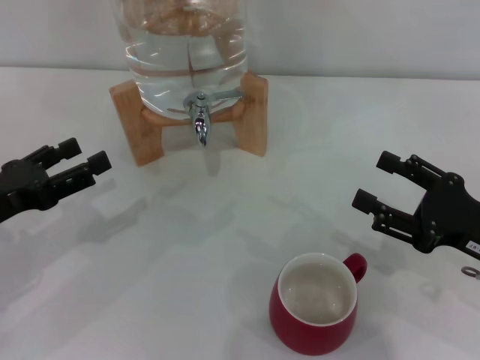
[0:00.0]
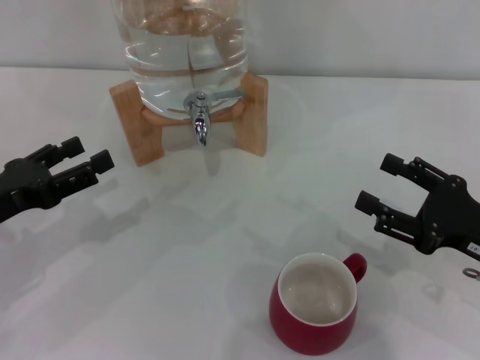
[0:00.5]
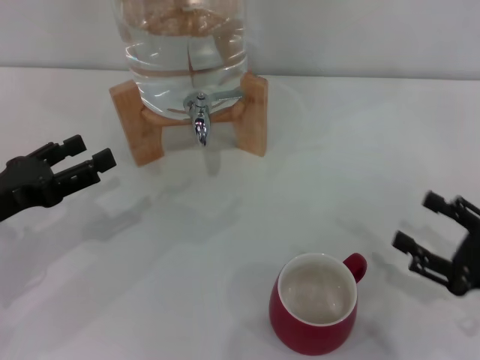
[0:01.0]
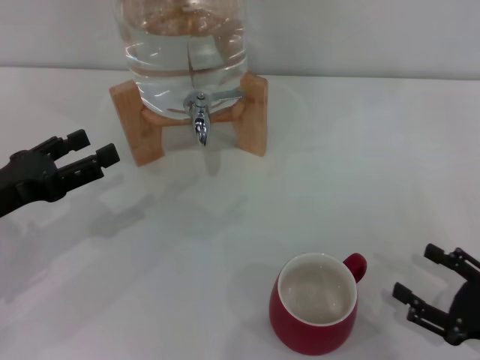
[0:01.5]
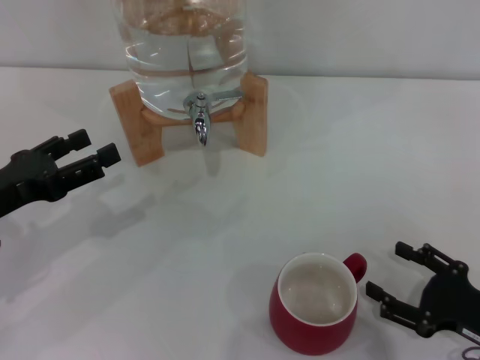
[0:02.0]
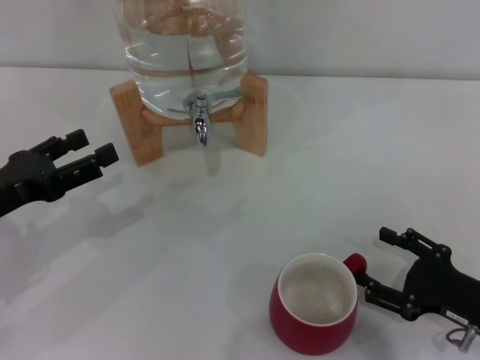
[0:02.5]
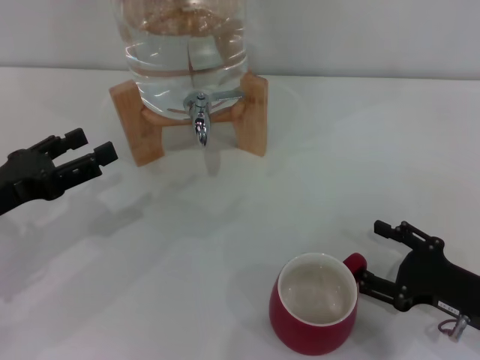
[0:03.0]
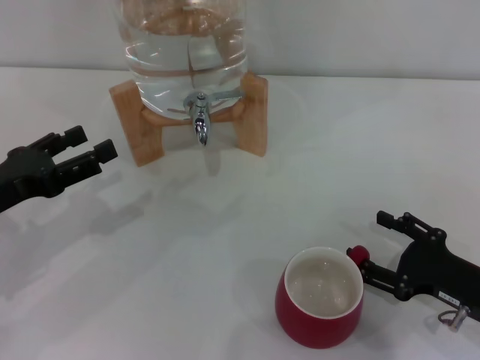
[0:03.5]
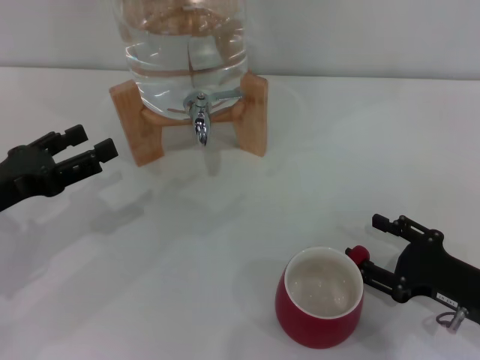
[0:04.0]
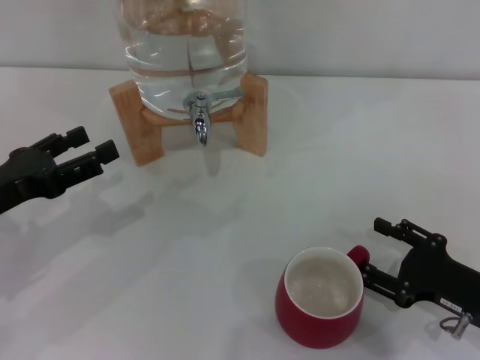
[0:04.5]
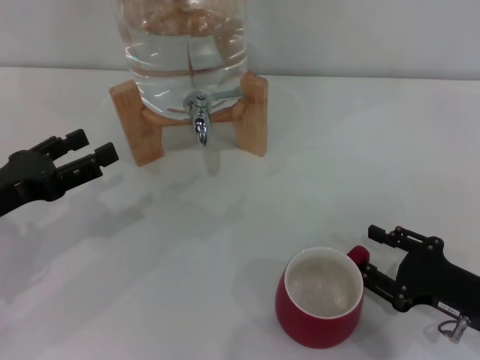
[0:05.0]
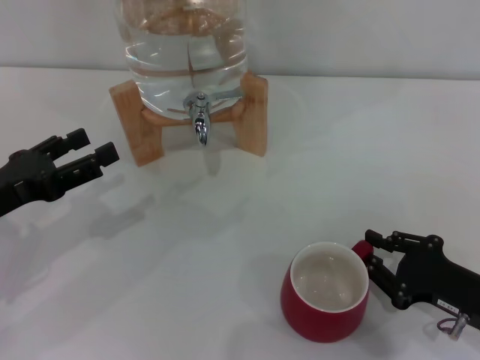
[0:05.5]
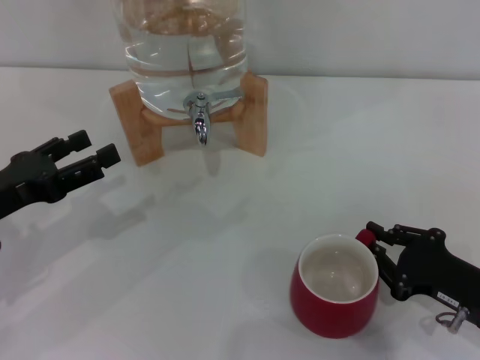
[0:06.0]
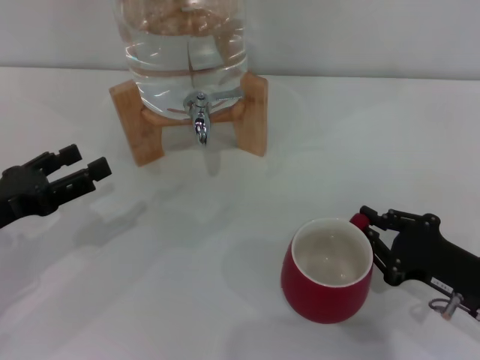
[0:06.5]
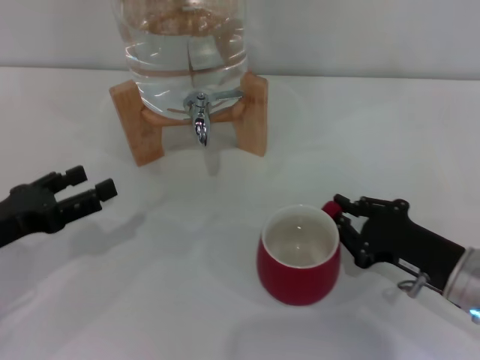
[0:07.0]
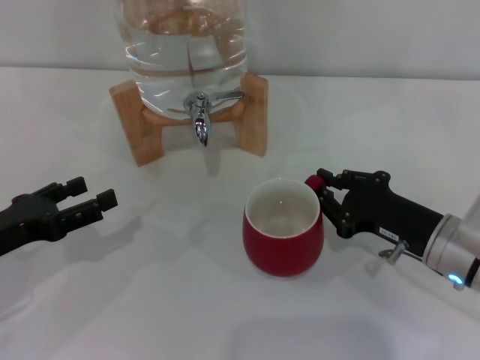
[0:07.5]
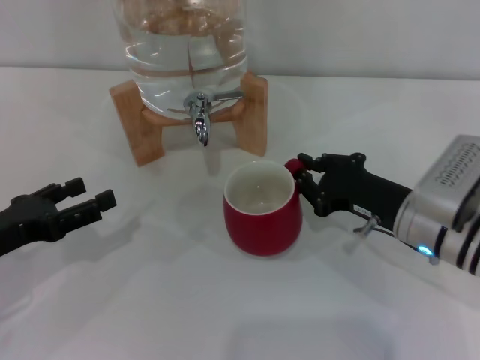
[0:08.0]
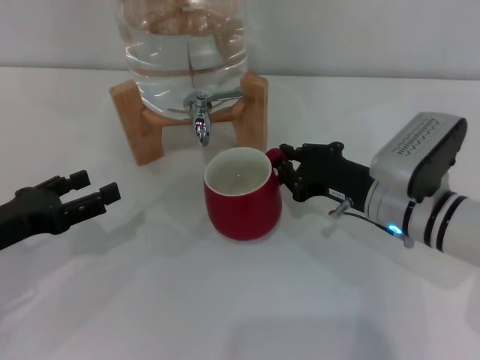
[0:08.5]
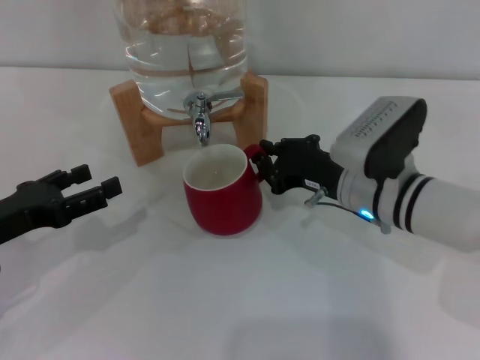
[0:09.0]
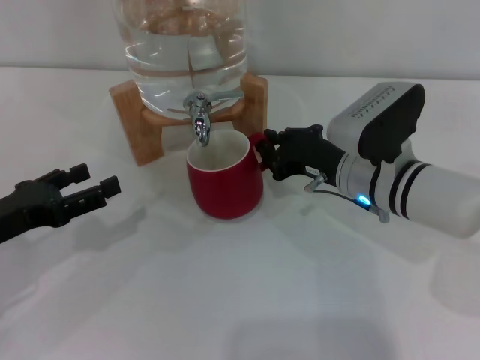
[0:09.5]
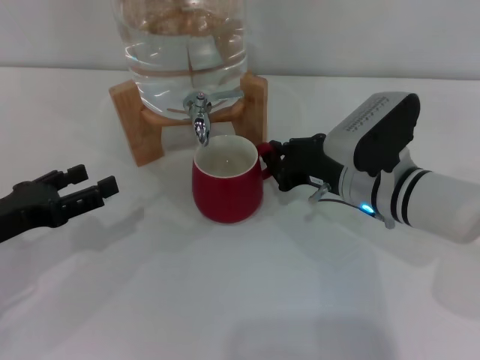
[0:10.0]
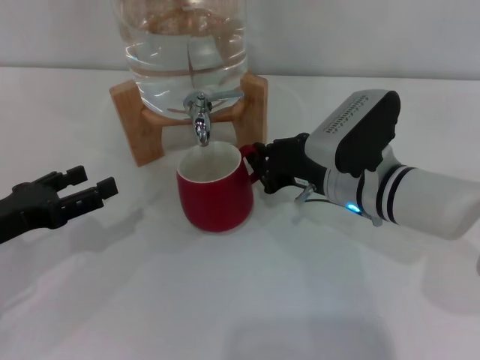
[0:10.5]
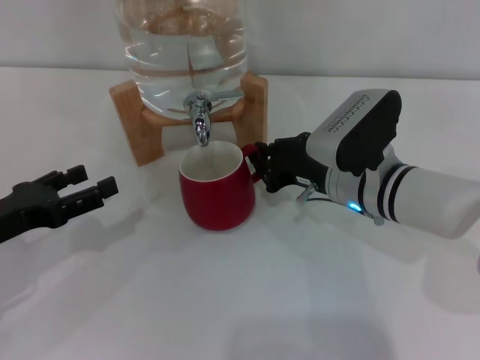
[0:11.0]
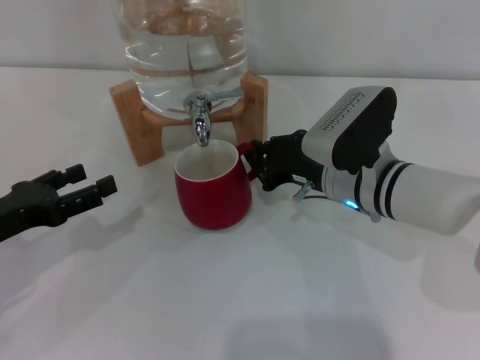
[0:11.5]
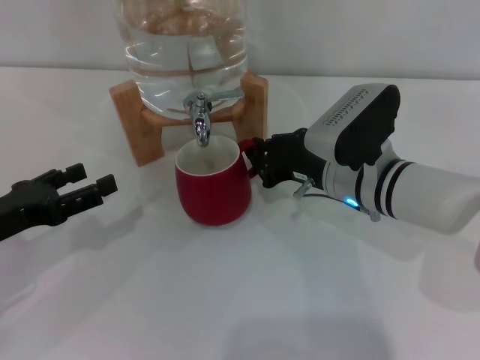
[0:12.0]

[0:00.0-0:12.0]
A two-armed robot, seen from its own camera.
Task of the whole recording: the right gripper pick up the red cup and place it horizontally under the faucet, the left gripper turn on the faucet to fill the cup, and then turn off the faucet.
0:00.0 to 0:02.0: The right gripper heads downward, covering some 5 cm.
0:02.0 to 0:04.0: The grippers make only small movements.
0:04.0 to 0:06.0: The right gripper closes up.
0:06.0 to 0:08.0: The right gripper moves forward and to the left, about 10 cm.
0:08.0 to 0:10.0: The right gripper goes some 5 cm to the left.
0:10.0 to 0:12.0: The grippers make only small movements.

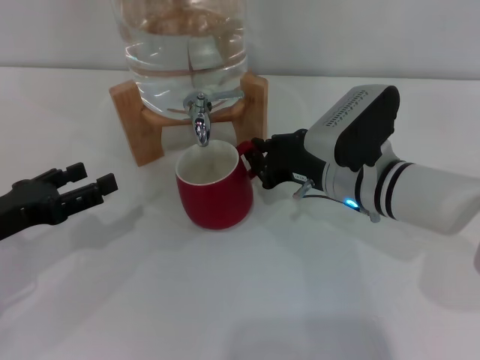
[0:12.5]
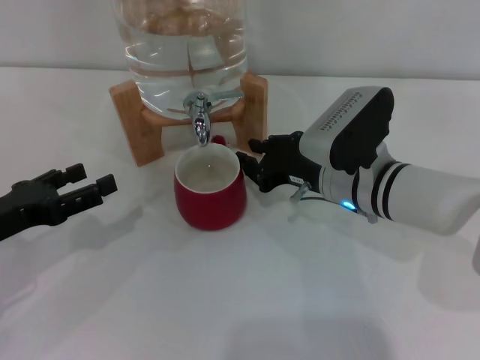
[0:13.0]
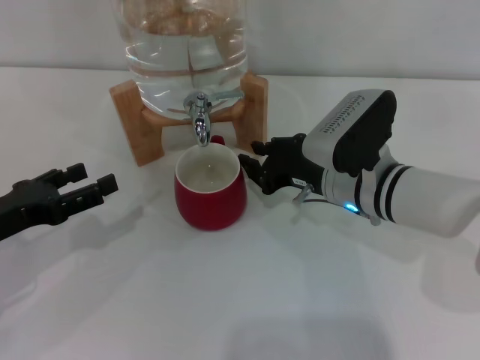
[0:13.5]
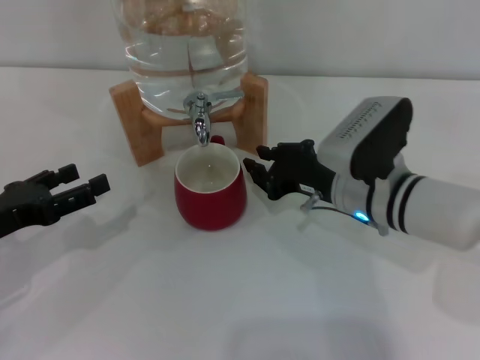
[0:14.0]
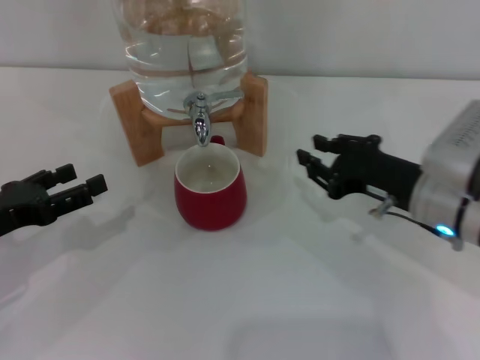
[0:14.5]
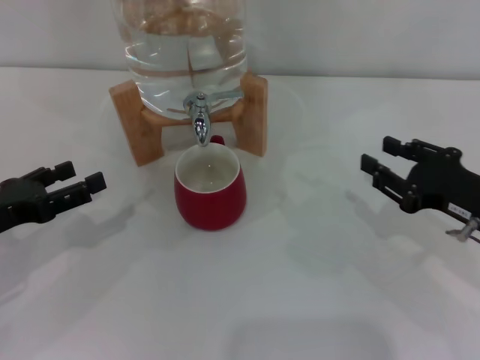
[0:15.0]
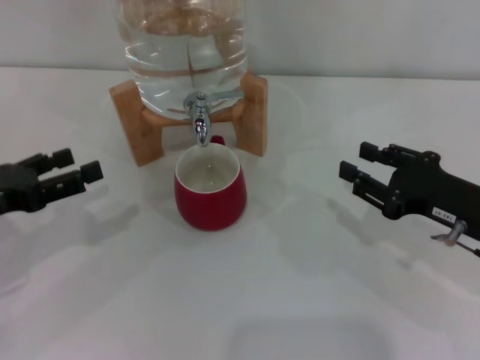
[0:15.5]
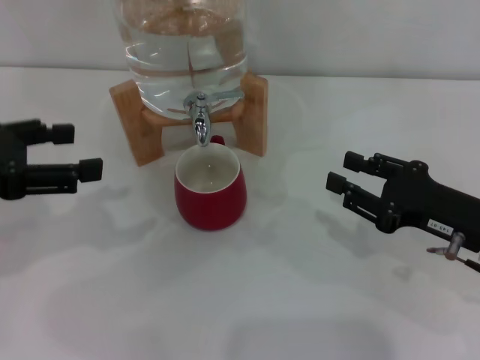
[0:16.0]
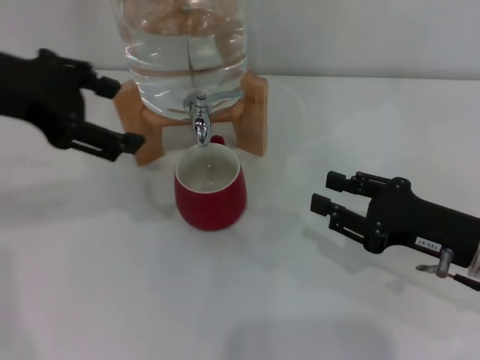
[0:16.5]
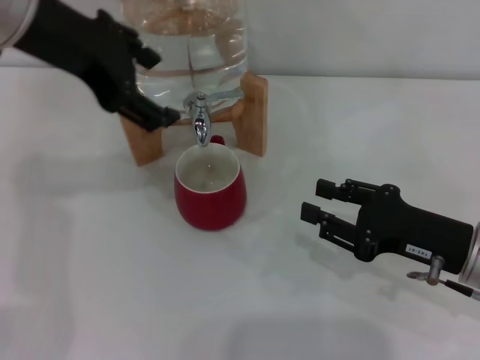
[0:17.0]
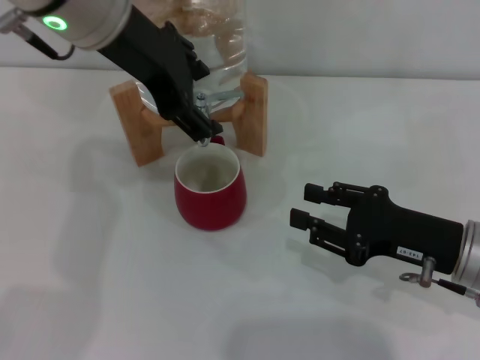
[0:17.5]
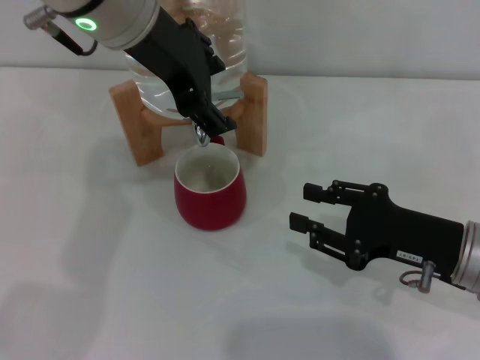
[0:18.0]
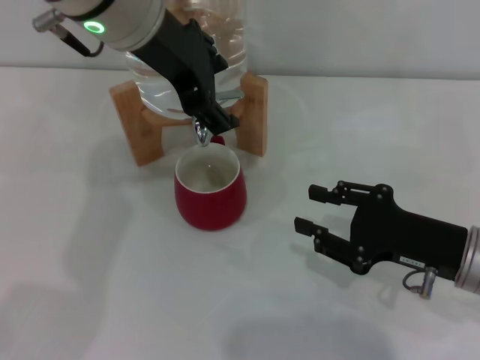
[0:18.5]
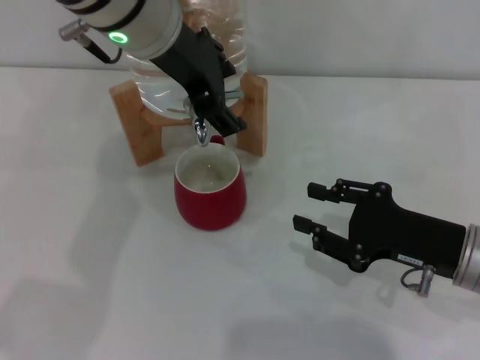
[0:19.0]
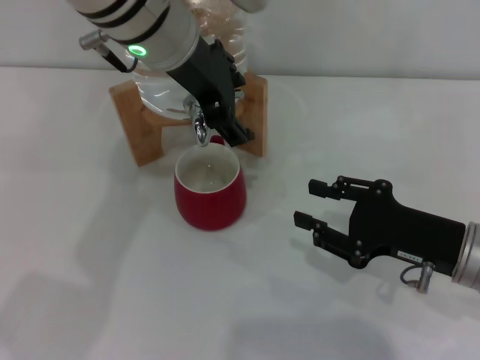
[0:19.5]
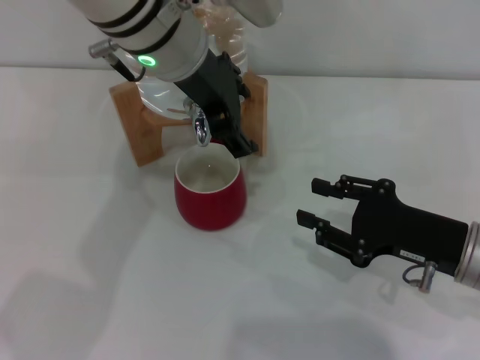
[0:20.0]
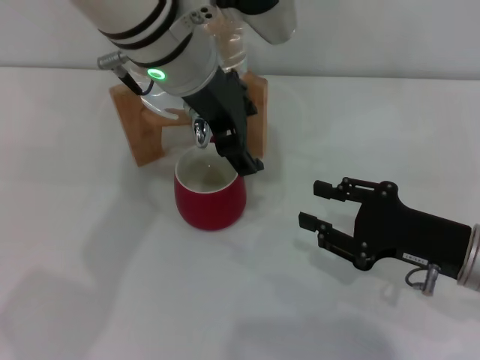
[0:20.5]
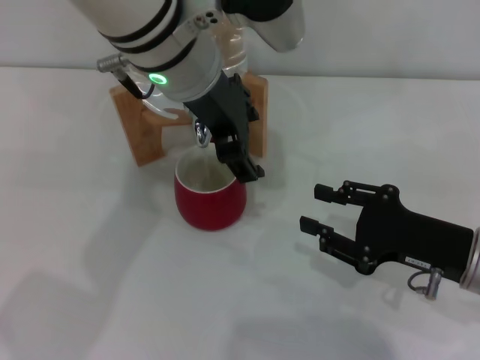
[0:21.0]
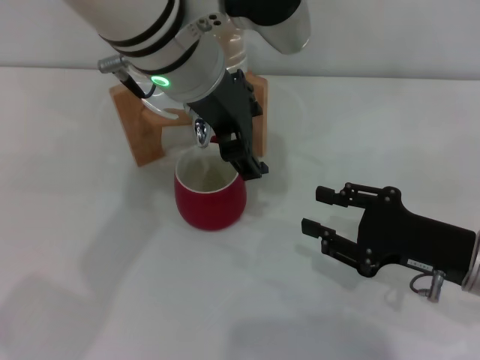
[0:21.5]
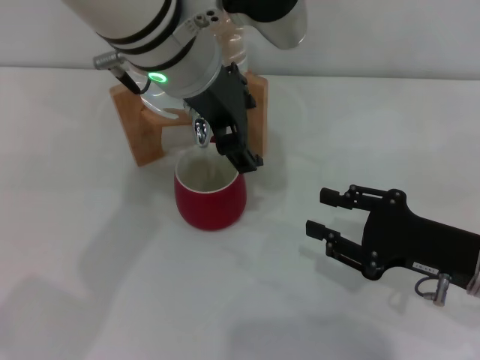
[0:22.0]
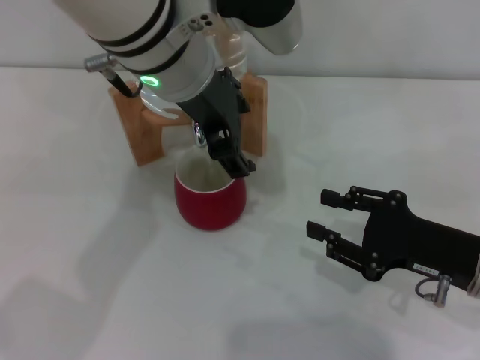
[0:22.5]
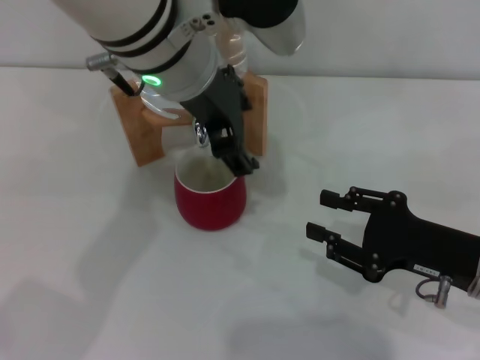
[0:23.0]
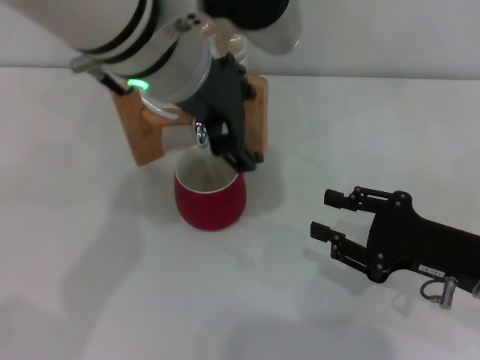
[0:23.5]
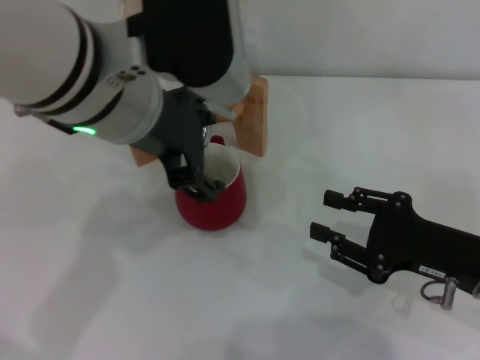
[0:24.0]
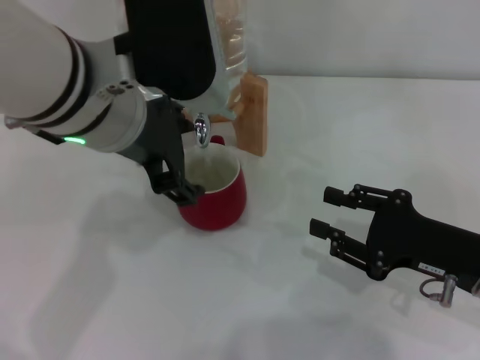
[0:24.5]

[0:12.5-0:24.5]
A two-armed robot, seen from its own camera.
Task of the whole recording: the right gripper pick up the red cup and place it horizontally under the faucet, the left gripper turn on the faucet to fill the cup, and then turn off the faucet.
Step, 0:14.5 to 0:24.0: Open the dispenser valve and fill the cup with water with the left gripper.
0:12.5 to 0:14.5: The right gripper goes about 10 cm to the right.
0:14.5 to 0:16.5: The left gripper shifts some 20 cm upward. Meanwhile the right gripper shifts by some 5 cm.
0:16.5 to 0:18.5: The left gripper shifts approximately 15 cm to the right and forward.
0:18.5 to 0:20.5: The left gripper changes place by some 5 cm.
0:20.5 to 0:22.5: The grippers make only small movements.
0:22.5 to 0:24.5: The left gripper shifts by about 5 cm.

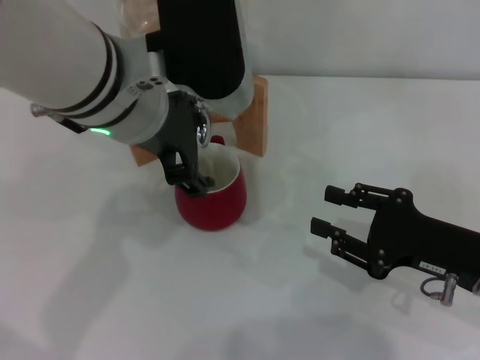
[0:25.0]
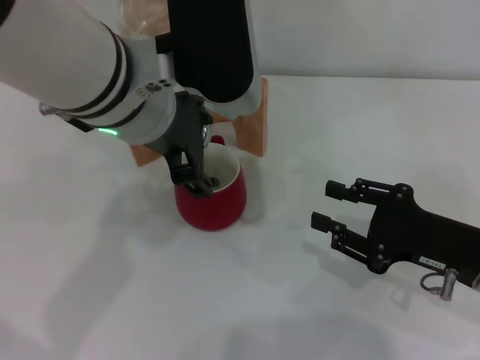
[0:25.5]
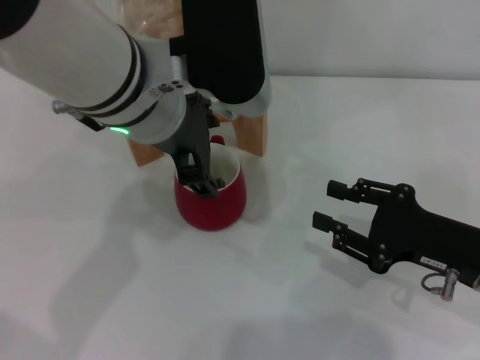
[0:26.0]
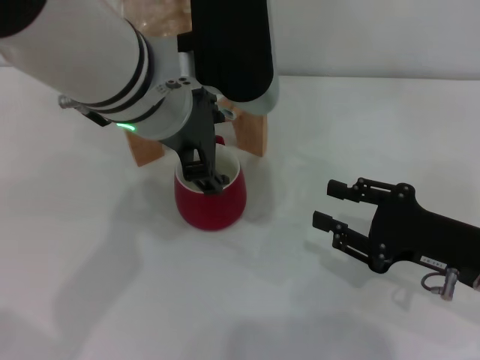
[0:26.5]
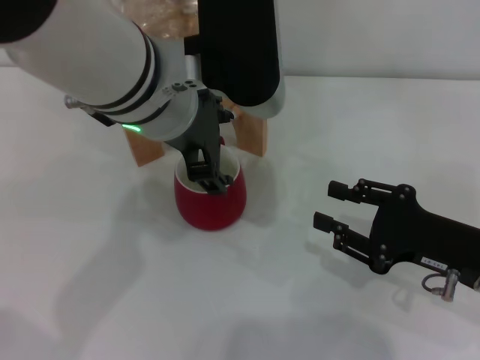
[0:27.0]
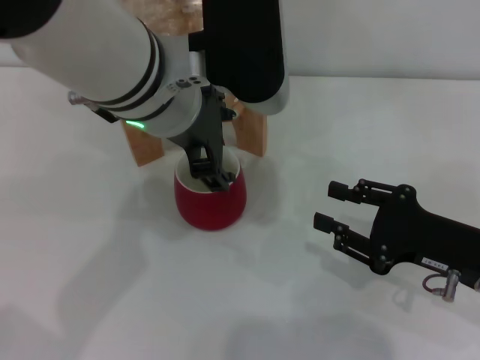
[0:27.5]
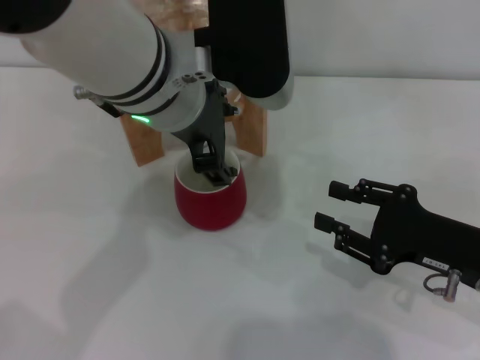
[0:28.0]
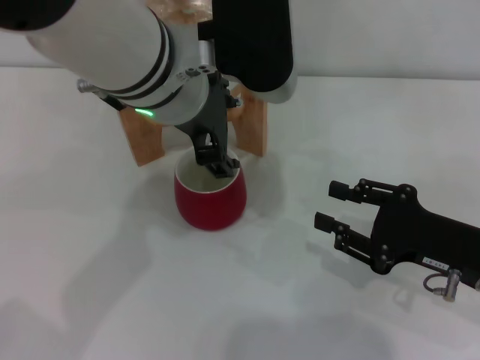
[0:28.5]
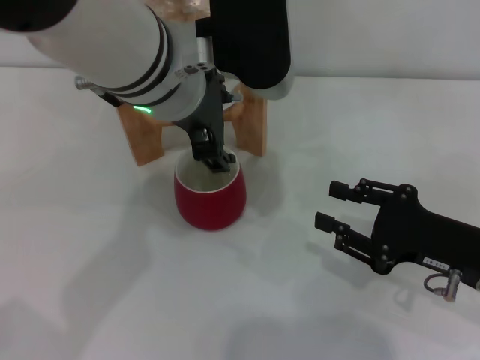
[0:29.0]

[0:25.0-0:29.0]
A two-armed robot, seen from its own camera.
Task of the whole recording: the right gripper pick up the red cup and place it horizontally under the faucet, the left gripper turn on the faucet to fill the cup, and then turn off the faucet.
0:25.0 to 0:27.0: The grippers move only a little.
0:27.0 to 0:29.0: Both grippers stay about where they are.
